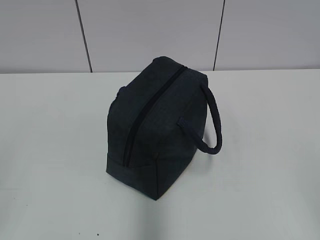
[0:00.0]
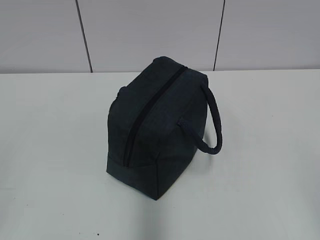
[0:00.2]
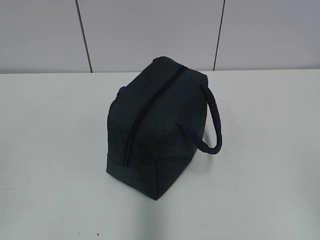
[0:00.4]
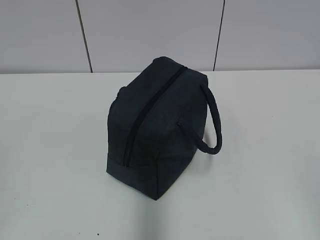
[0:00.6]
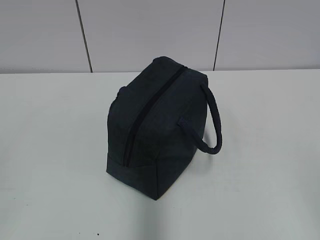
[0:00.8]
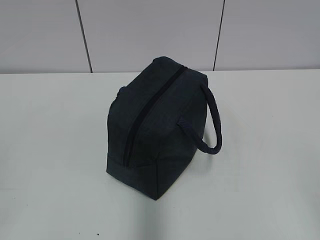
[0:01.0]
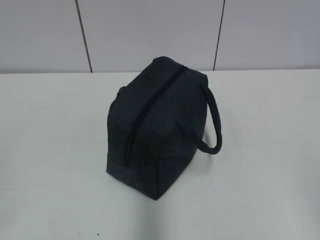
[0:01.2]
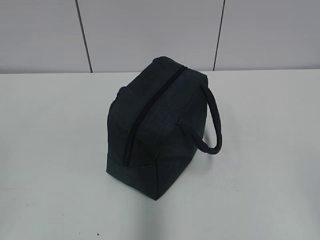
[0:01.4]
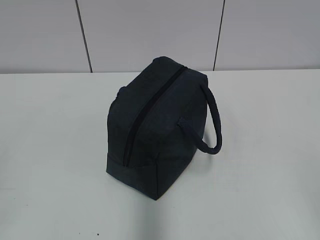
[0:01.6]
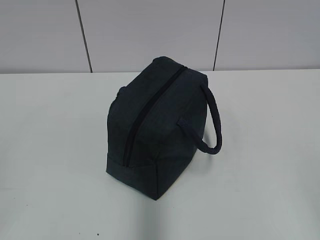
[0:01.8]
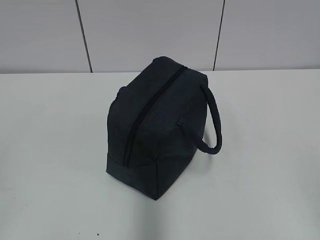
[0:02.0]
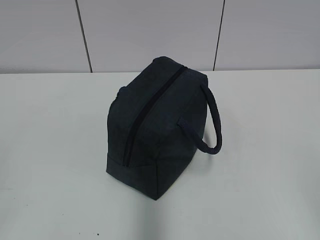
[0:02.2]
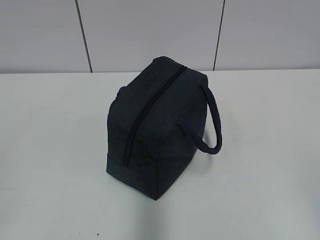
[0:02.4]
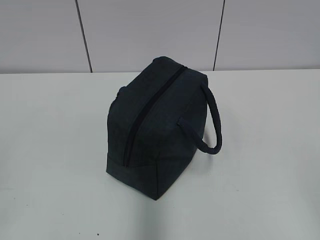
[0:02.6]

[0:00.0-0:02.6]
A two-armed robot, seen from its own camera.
0:01.2 to 0:02.6: Neither gripper changes place.

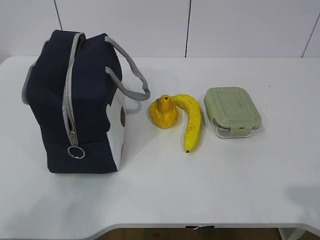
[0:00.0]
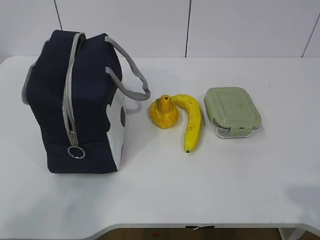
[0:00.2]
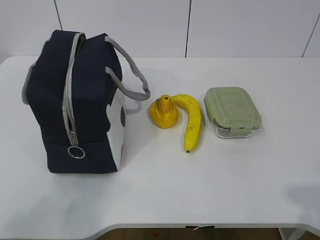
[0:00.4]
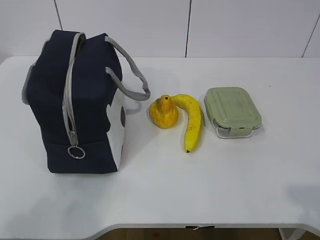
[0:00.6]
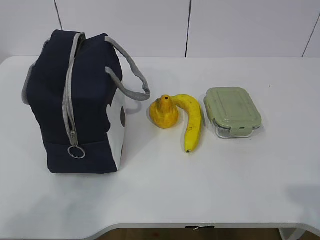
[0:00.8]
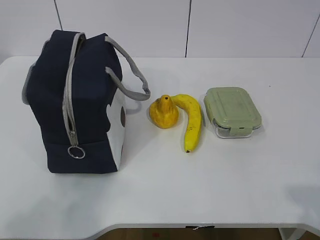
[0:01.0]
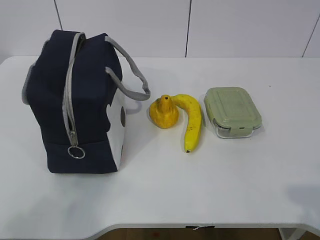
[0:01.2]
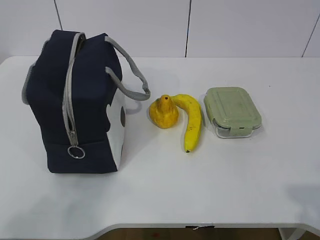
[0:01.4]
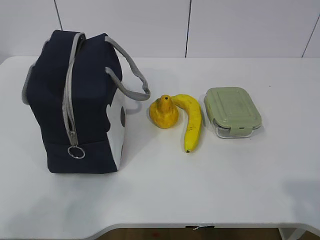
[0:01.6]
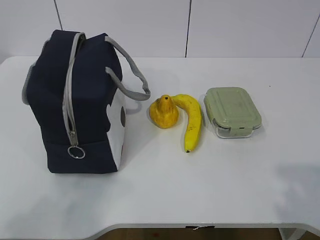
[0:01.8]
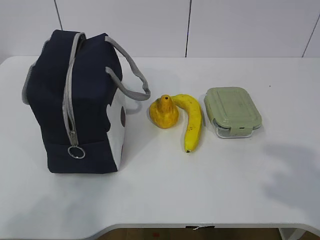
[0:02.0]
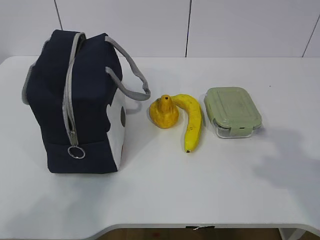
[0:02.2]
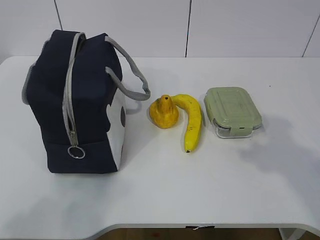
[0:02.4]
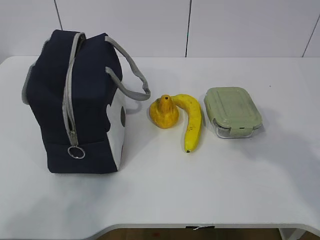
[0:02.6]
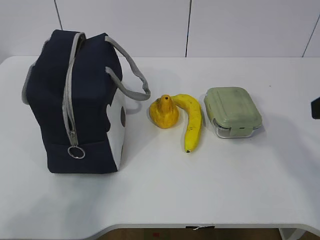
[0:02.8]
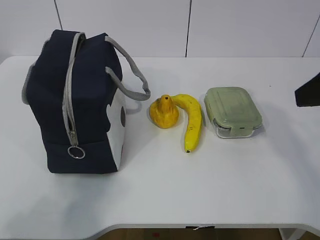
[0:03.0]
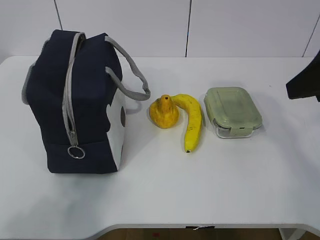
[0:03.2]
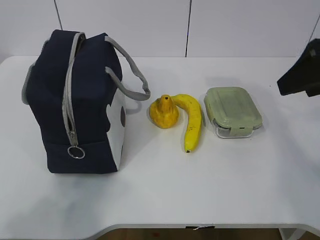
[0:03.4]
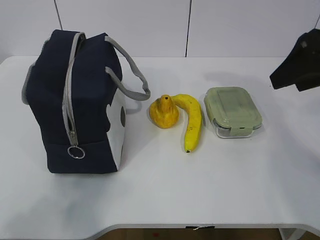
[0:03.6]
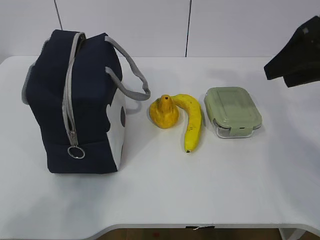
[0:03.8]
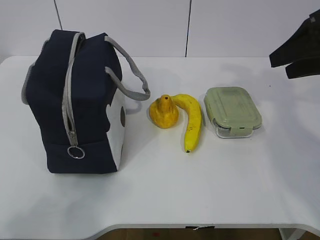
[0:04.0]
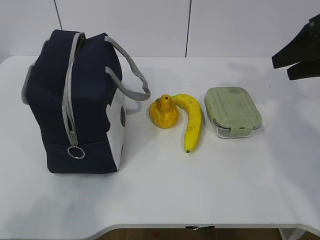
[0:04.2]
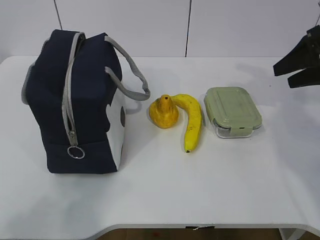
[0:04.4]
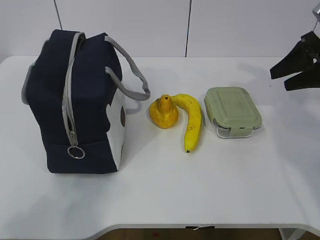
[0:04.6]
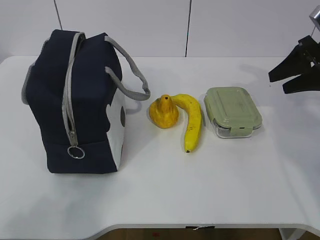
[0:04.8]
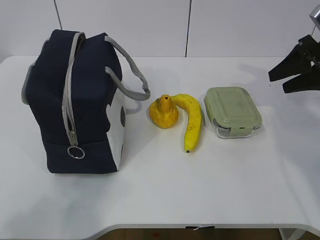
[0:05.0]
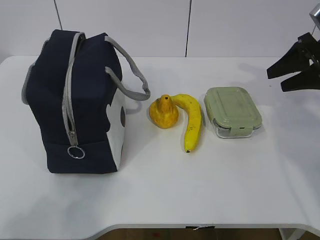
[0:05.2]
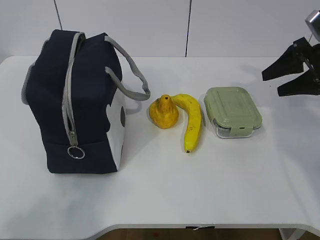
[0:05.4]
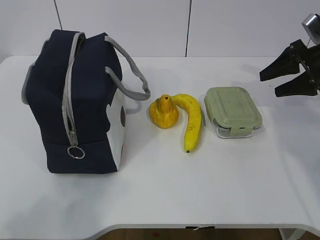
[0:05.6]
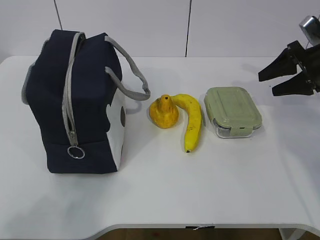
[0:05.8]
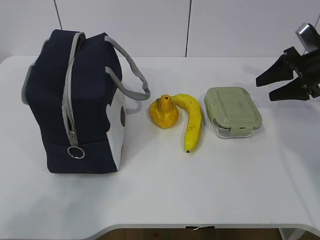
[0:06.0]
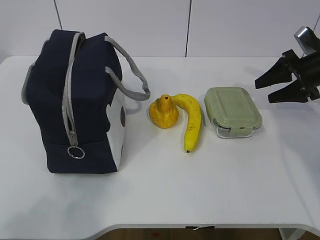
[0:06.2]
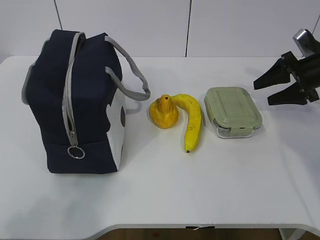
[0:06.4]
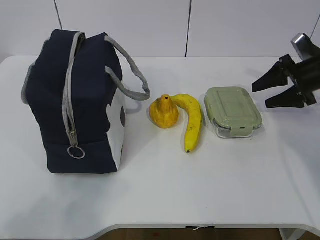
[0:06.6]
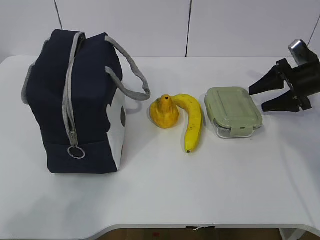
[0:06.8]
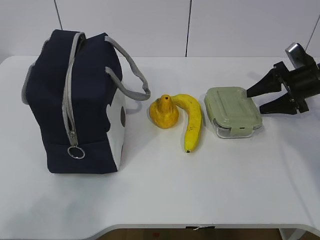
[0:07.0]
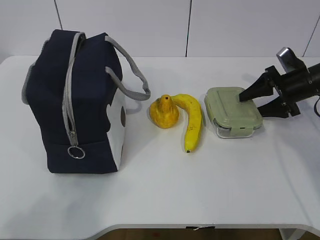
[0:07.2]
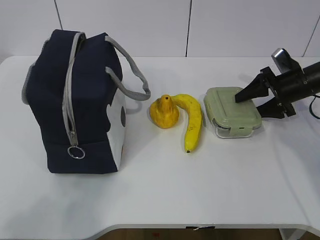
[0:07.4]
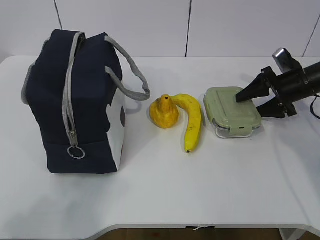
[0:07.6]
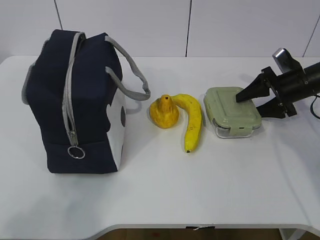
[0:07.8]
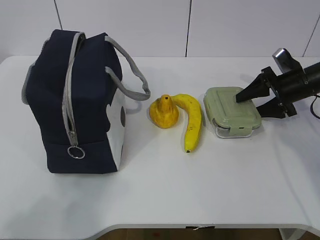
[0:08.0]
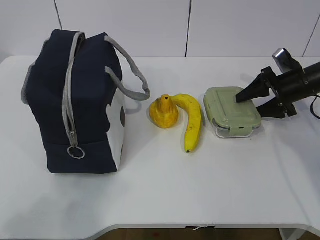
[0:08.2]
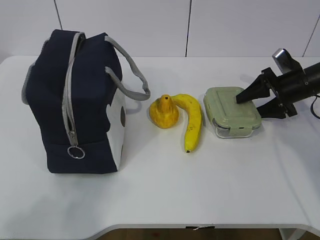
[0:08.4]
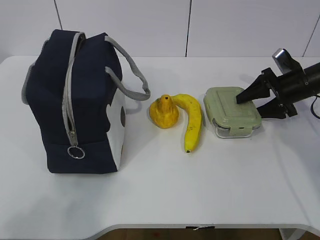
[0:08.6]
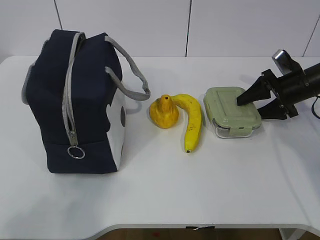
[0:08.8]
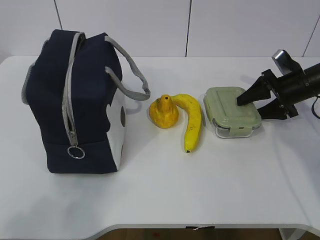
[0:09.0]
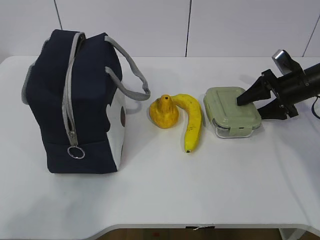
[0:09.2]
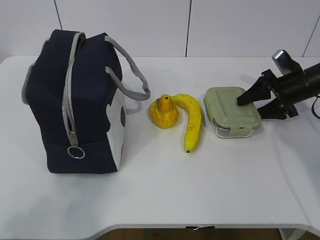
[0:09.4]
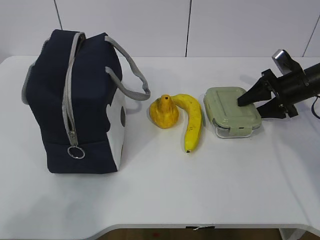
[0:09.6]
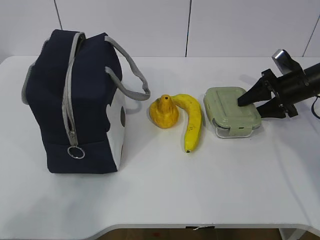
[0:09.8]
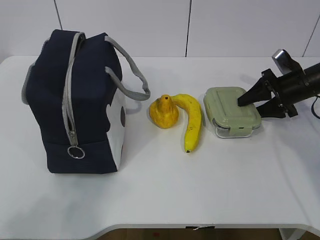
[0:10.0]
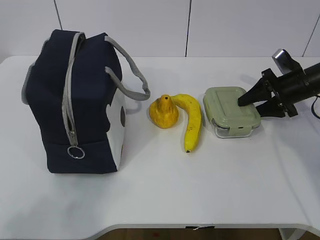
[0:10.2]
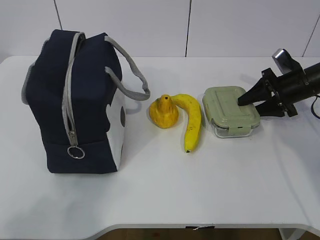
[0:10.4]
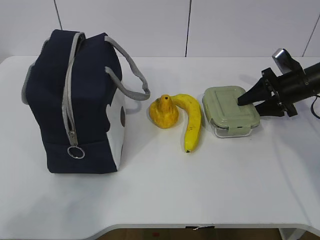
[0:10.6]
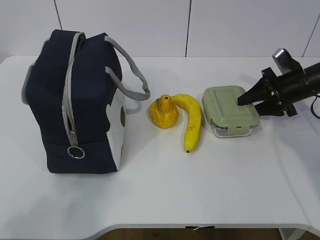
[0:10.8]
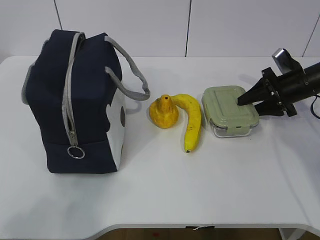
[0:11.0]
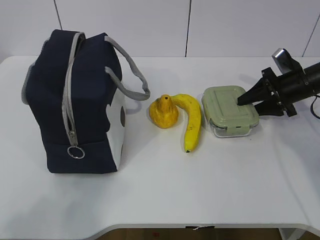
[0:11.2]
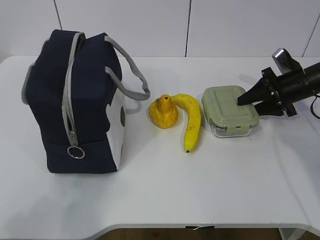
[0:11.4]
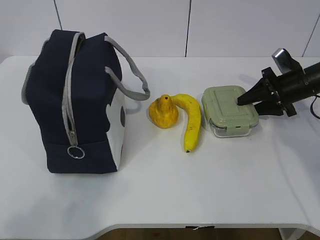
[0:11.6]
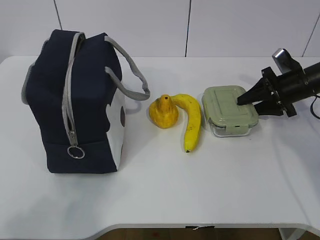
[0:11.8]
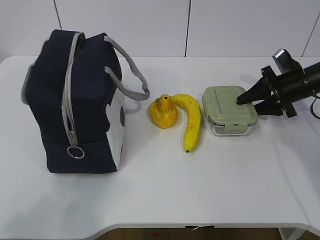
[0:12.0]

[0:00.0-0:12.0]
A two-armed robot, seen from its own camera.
Step, 0:00.0 to 0:10.8: Grasp the box with the right gripper.
0:01.6 to 0:03.0: The right gripper is displaced forward by about 25 cm.
0:03.0 to 0:04.4: The right gripper heads forward and to the right, covering roughly 20 cm.
0:04.4 to 0:06.0: The right gripper heads downward and forward, covering roughly 10 cm.
0:06.0 to 0:07.6: The right gripper goes approximately 5 cm downward.
0:07.6 to 0:12.0: Both grippers stay about where they are.

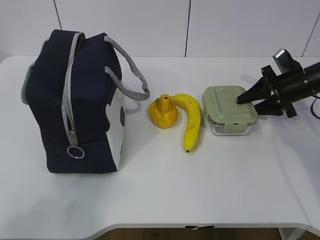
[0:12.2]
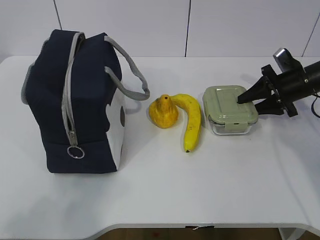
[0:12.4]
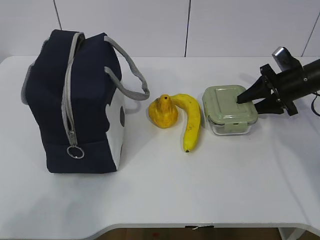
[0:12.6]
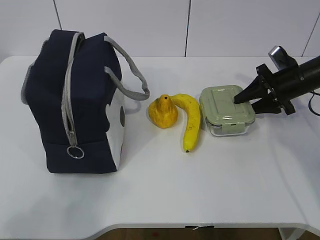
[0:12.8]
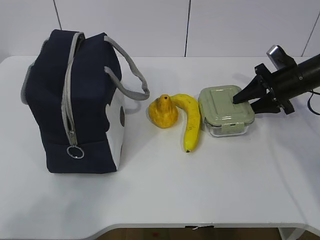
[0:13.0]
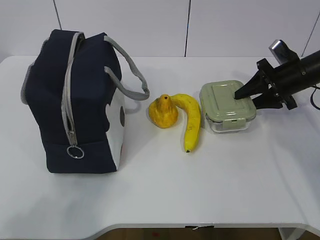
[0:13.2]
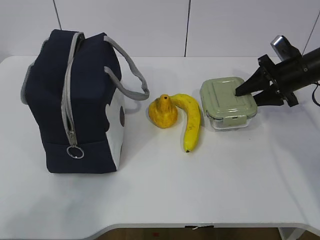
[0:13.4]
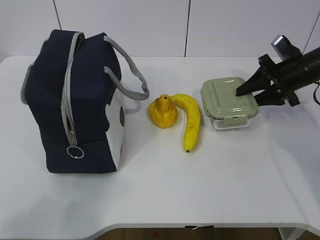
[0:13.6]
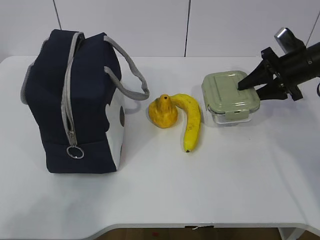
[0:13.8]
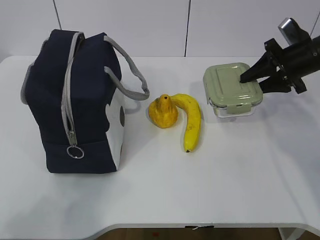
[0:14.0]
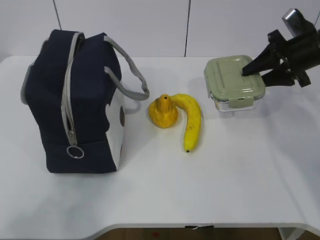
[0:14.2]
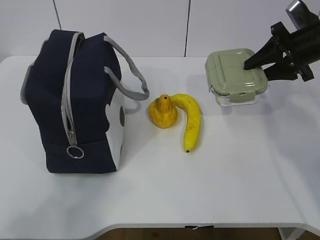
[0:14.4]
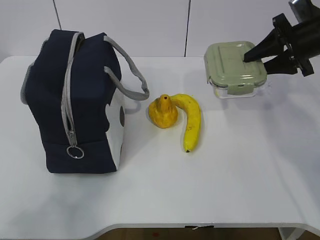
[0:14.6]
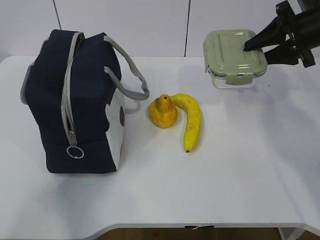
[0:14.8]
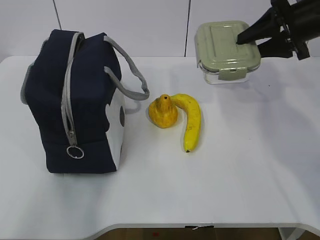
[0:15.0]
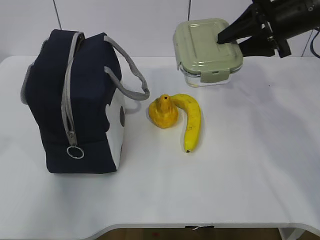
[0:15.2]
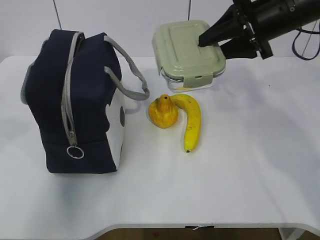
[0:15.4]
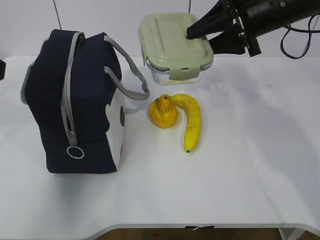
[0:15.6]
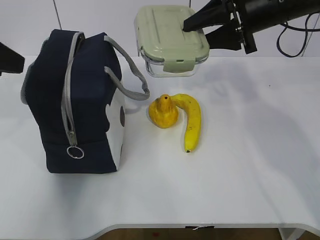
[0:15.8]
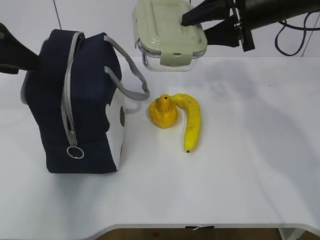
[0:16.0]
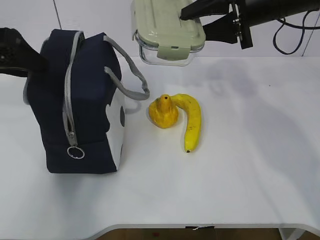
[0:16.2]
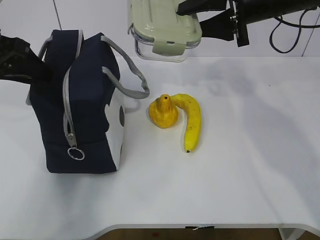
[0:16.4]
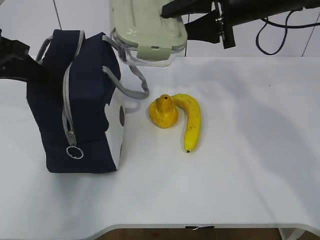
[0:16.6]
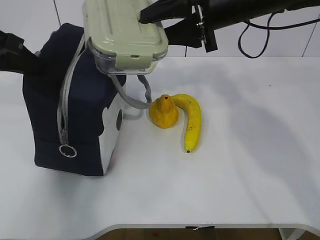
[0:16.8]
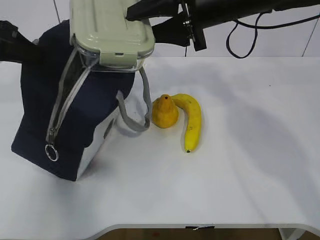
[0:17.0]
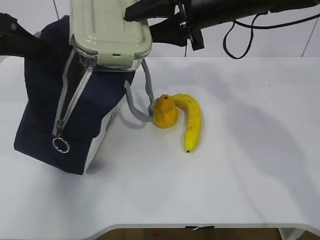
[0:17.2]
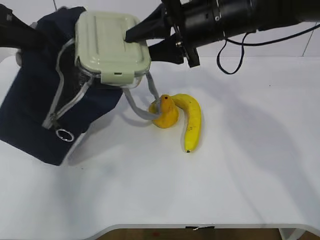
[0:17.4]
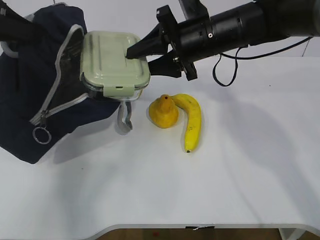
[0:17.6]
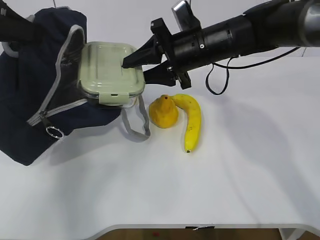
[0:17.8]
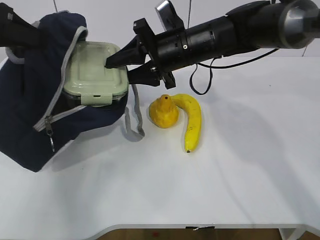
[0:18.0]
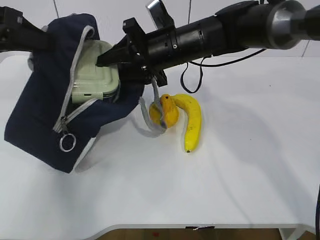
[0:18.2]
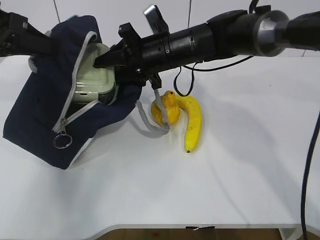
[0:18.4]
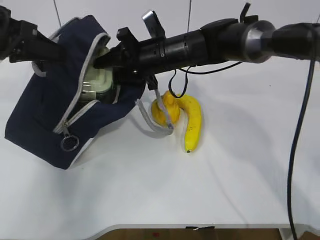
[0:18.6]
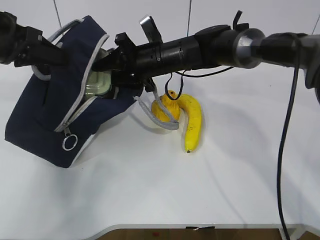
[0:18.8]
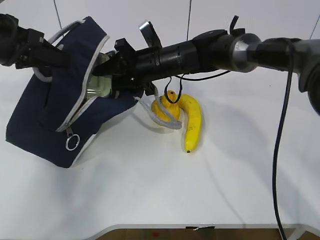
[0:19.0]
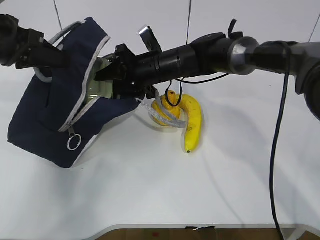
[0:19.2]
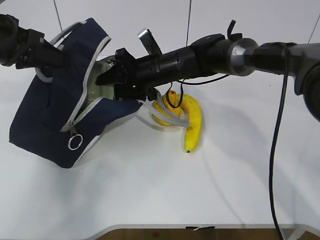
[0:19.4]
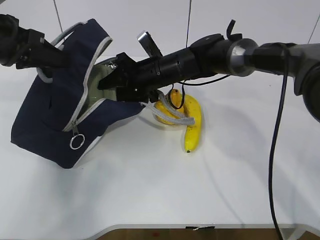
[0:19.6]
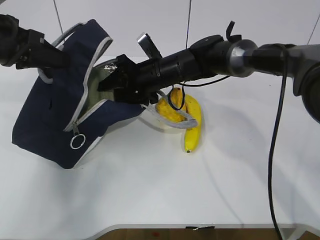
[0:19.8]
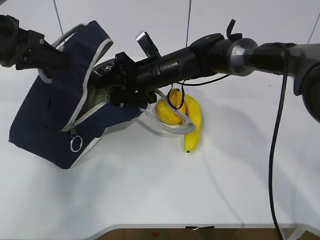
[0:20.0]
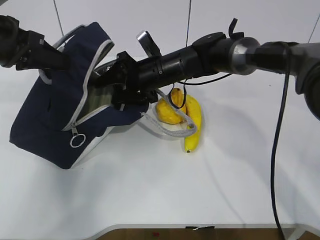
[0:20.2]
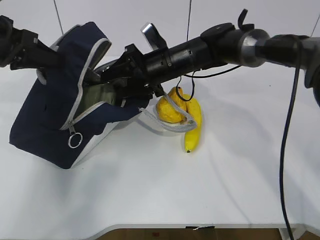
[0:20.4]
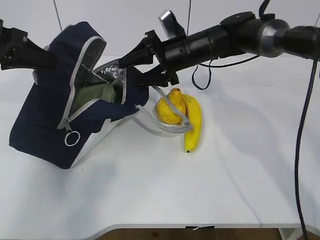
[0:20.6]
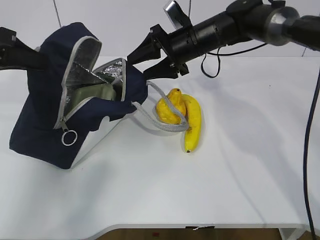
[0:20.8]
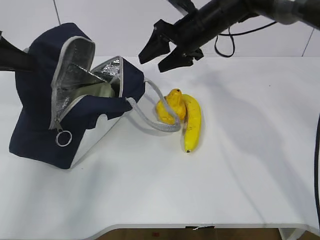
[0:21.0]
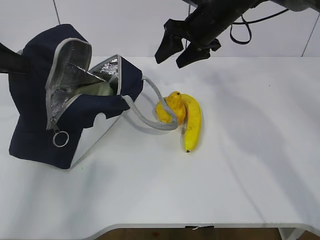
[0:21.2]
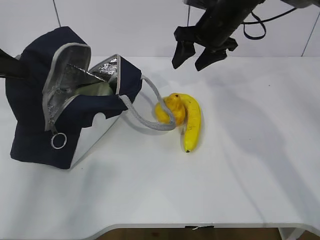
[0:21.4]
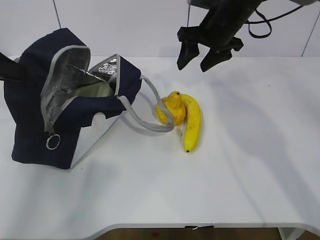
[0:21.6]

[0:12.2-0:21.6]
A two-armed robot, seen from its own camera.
Step, 0:12.2 to 0:20.2: Place the box into the package with the right gripper.
0:12.2 to 0:13.8: The right gripper changes place by approximately 5 cm.
0:13.8 to 0:15.4: The left gripper shifts roughly 15 cm forward and upward. The right gripper travels upward and to the left by approximately 15 cm.
0:15.4 to 0:17.0: The left gripper goes about 15 cm forward, and closes, while the right gripper heads to the left, covering approximately 10 cm.
0:17.0 to 0:18.4: The right gripper travels downward, to the left and forward by about 15 cm.
0:18.4 to 0:20.0: The right gripper shifts about 5 cm downward.
0:20.0 to 0:21.6: The left gripper moves to the left, some 5 cm. Meanwhile the right gripper goes roughly 15 cm to the right and upward.
